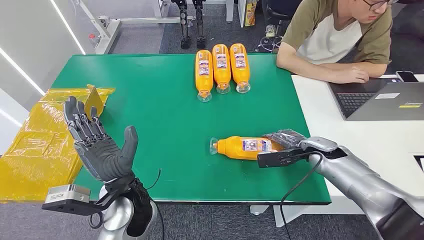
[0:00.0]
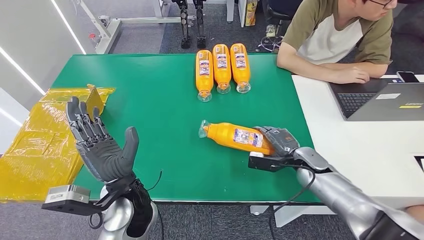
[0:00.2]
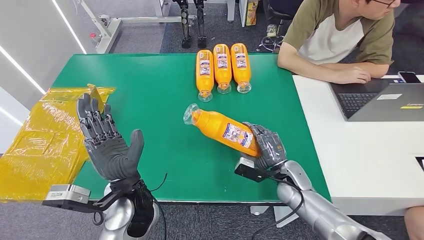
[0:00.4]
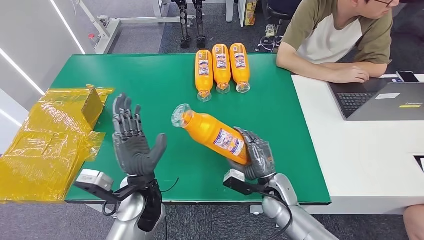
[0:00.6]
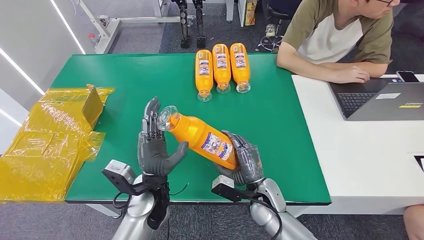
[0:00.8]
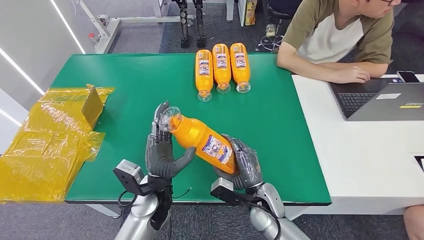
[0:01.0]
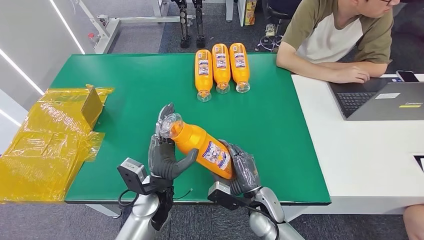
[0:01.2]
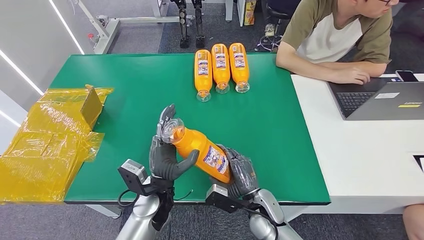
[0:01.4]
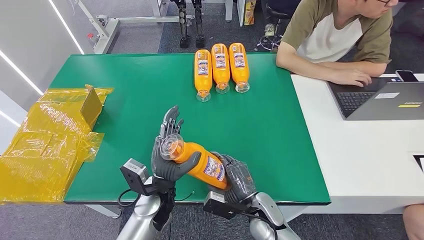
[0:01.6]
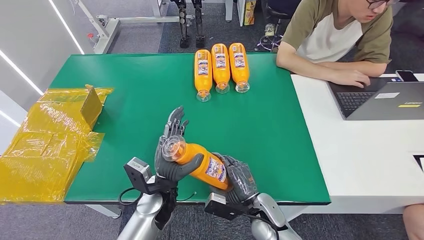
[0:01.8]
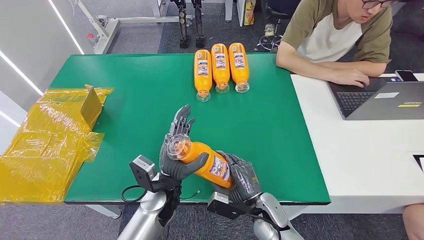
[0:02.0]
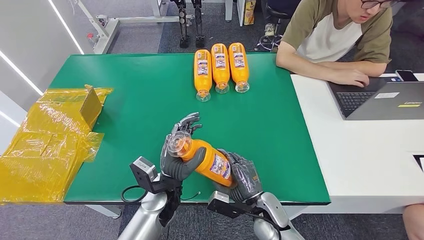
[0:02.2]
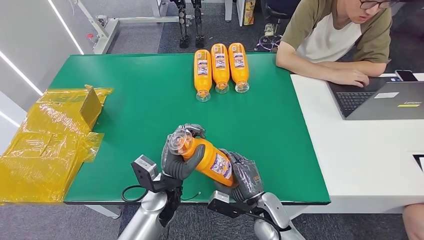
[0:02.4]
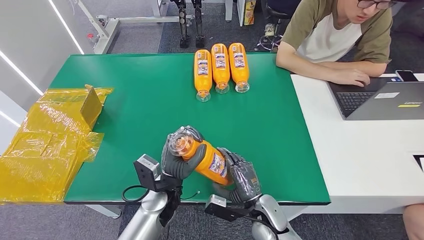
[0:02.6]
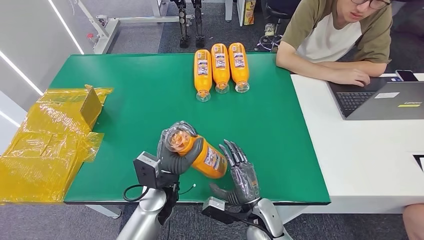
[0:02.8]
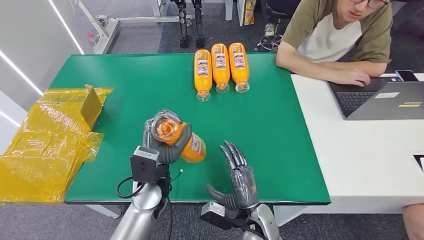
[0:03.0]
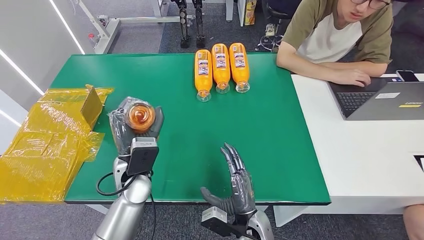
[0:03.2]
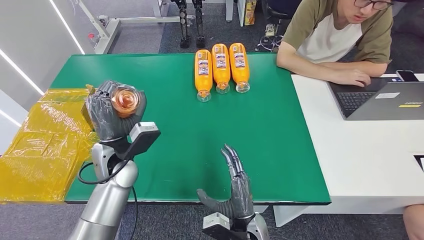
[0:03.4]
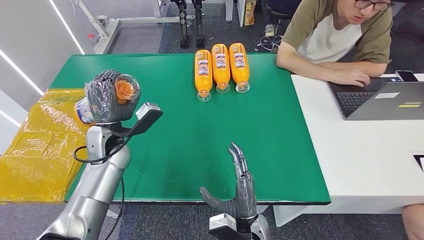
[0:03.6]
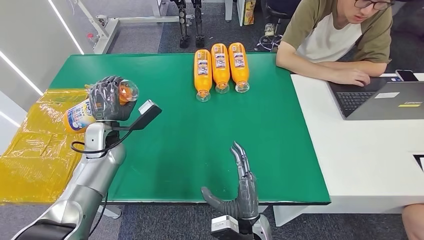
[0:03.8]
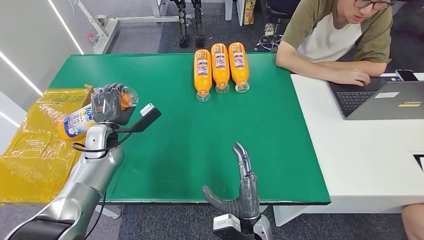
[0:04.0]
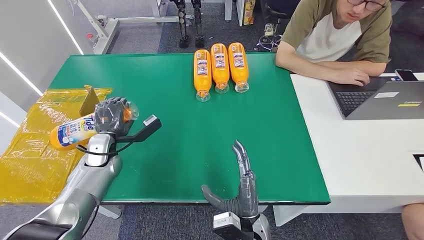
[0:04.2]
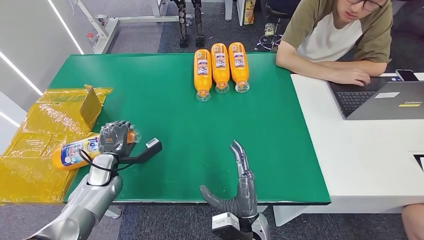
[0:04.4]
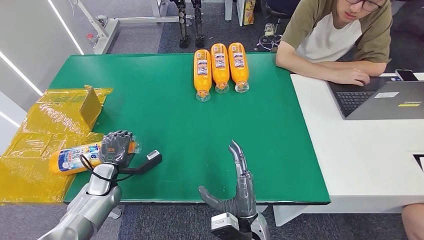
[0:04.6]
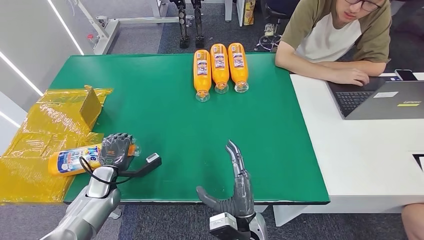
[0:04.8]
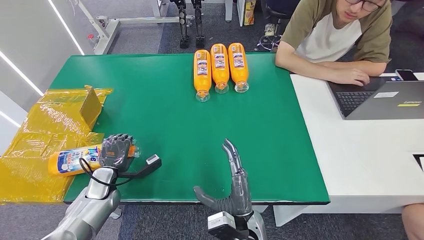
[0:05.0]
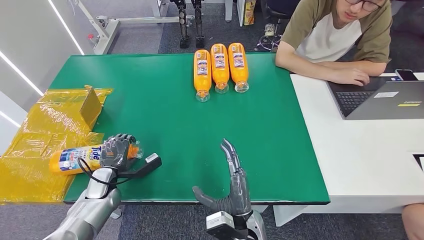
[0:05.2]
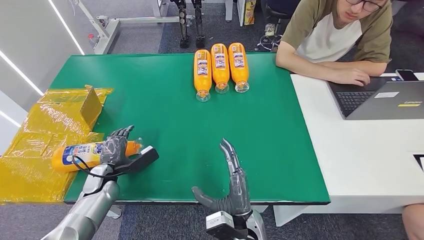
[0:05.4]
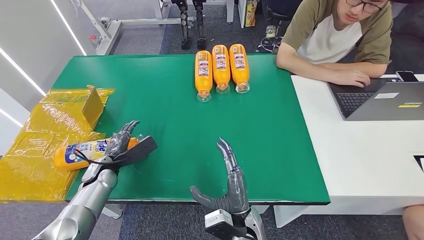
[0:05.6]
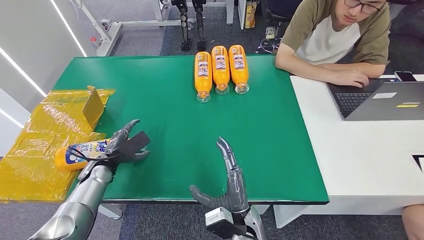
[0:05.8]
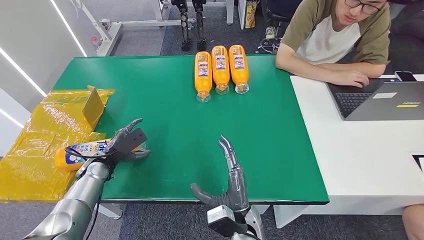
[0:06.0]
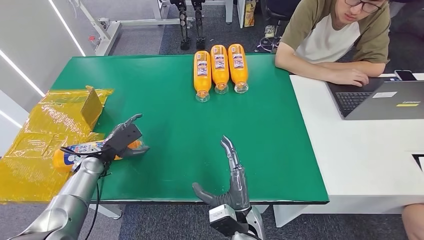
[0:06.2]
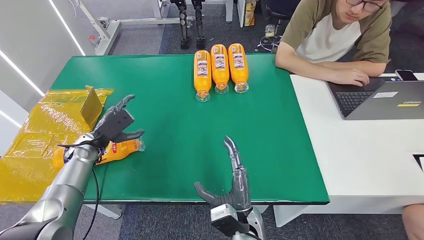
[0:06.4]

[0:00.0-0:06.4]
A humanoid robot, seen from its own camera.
Step, 0:00.0 to 0:02.0: Pick up the bottle from the table.
Step, 0:02.4 to 0:06.4: Turn the bottle to the front side.
0:01.6 to 0:03.2: The right hand changes place by about 5 cm. The left hand shifts some 10 cm upward and forward.
0:03.2 to 0:04.8: The left hand moves to the left and downward, roughly 20 cm.
0:04.8 to 0:06.4: The left hand is displaced forward and upward by approximately 10 cm.

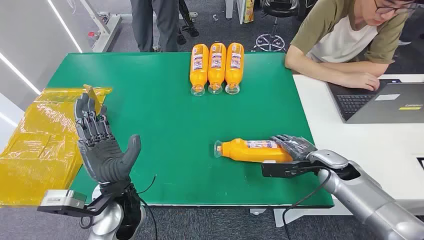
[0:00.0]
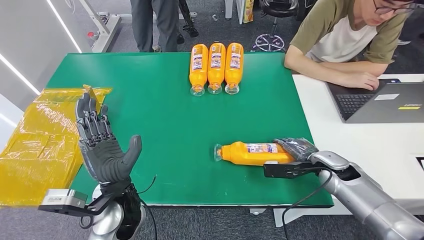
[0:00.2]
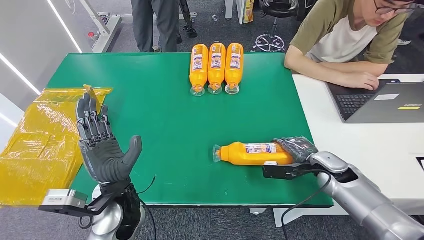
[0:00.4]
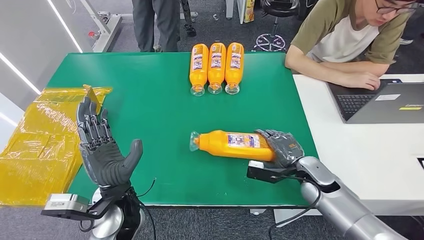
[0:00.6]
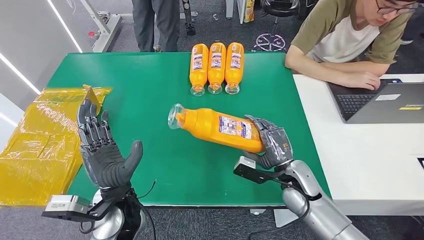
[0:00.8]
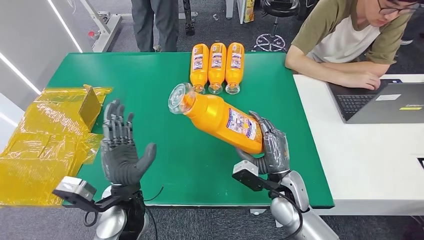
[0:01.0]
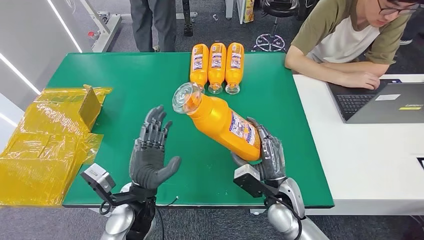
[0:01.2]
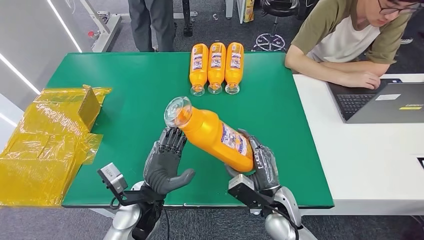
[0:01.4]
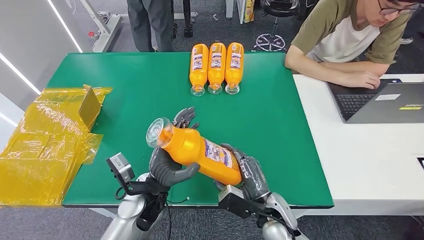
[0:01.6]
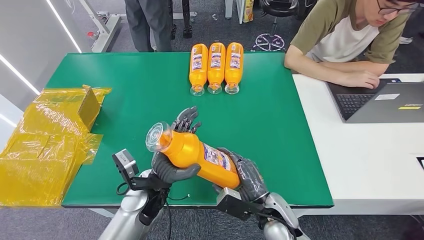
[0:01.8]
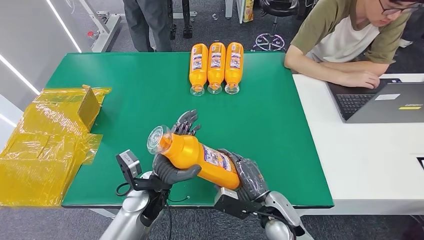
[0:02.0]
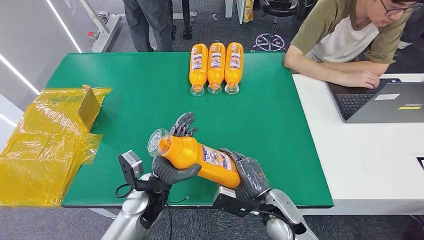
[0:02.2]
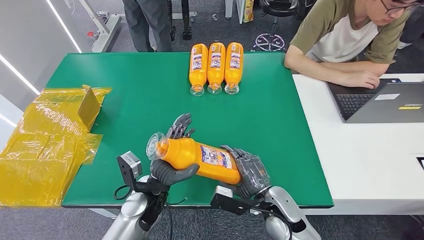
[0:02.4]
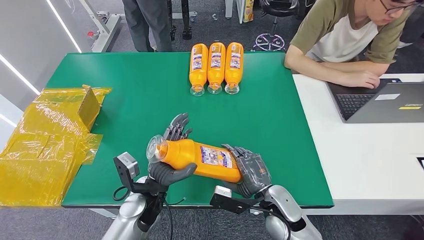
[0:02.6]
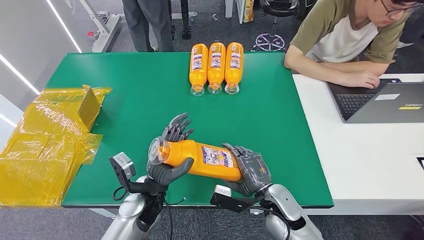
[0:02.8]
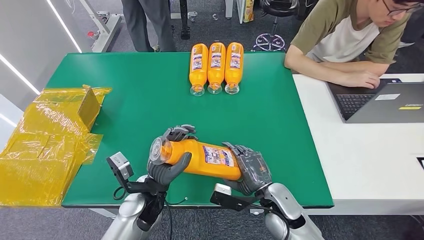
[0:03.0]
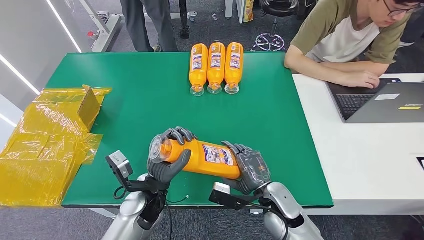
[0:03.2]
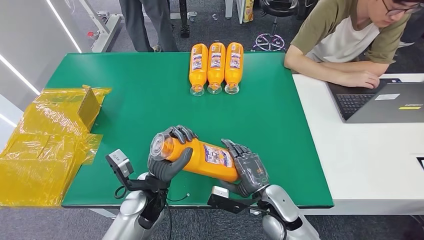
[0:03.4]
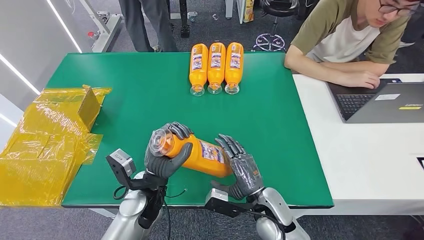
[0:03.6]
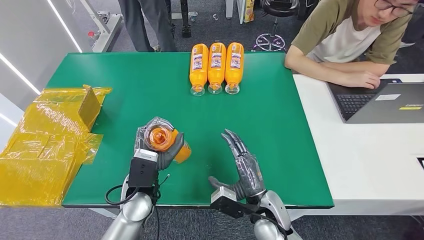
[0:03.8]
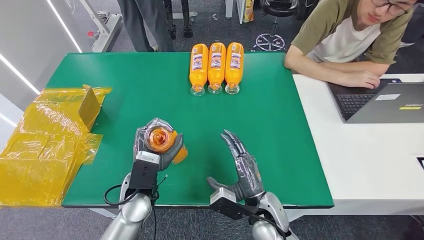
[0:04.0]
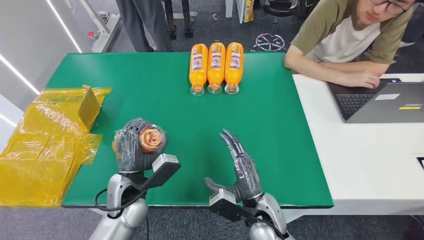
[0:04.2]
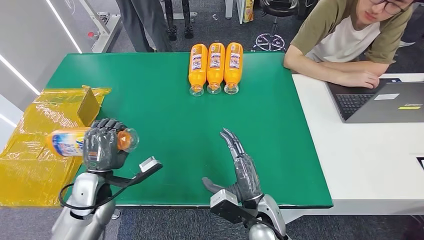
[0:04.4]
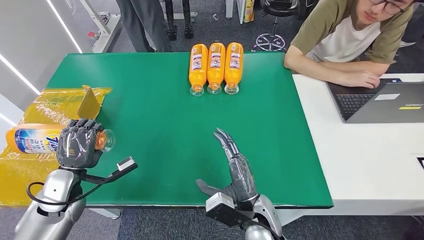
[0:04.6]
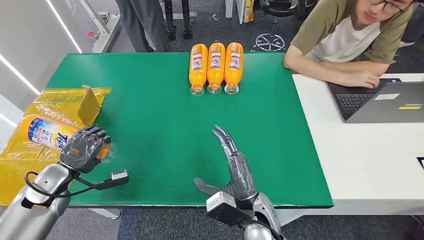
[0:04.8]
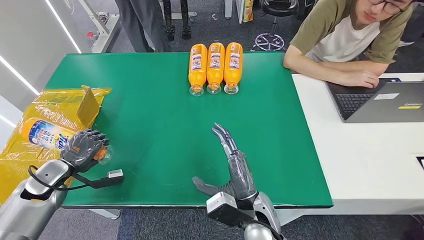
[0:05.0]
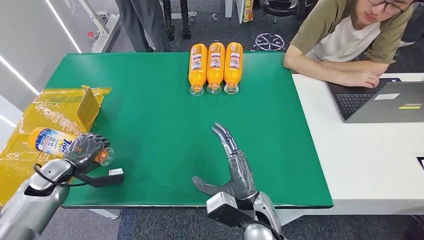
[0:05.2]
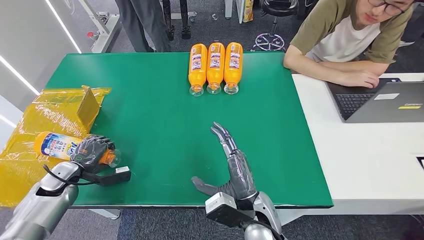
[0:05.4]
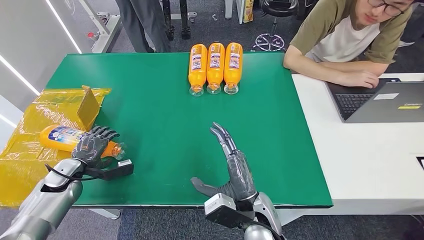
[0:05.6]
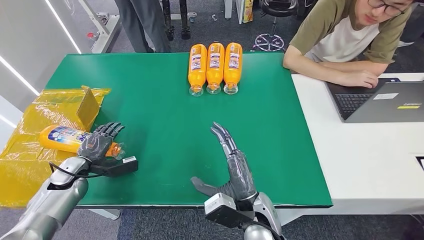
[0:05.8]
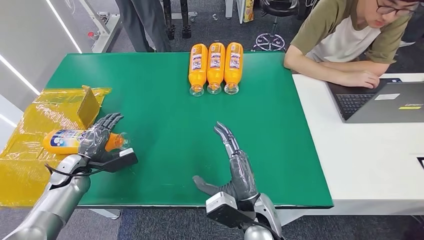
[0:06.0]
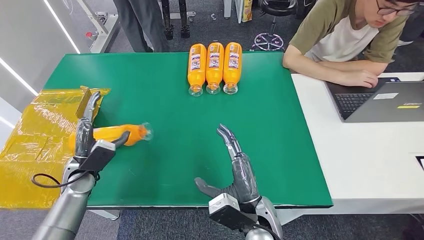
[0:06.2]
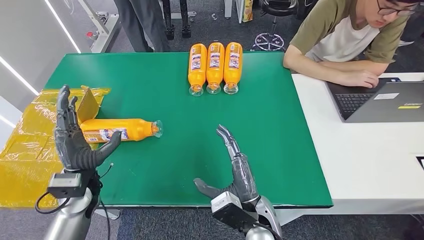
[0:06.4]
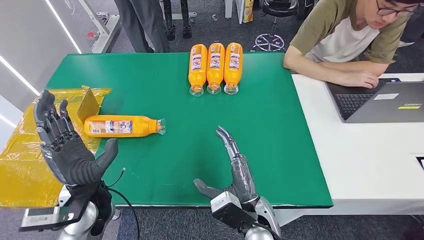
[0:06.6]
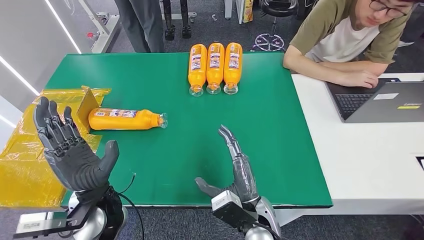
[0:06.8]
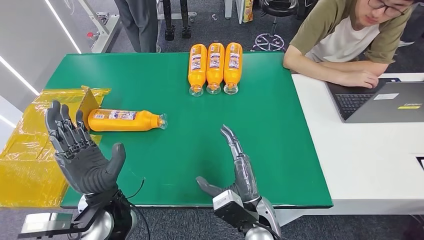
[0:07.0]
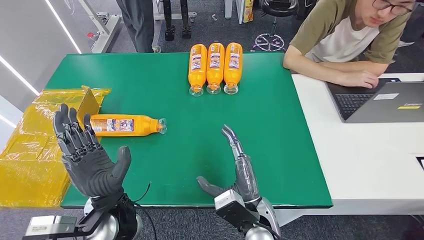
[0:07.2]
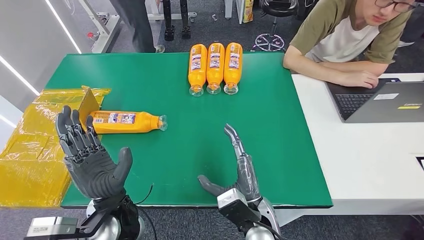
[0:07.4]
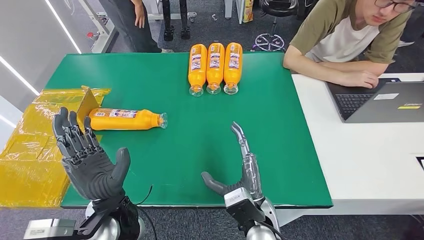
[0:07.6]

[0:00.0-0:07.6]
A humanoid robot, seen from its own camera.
Step, 0:00.0 to 0:02.8: Pick up the bottle from the table.
Step, 0:03.0 to 0:07.6: Turn the bottle to the front side.
0:03.0 to 0:04.6: The left hand is displaced to the left by approximately 25 cm; the right hand heads to the left, covering some 5 cm.
0:04.6 to 0:06.0: The left hand shifts by about 5 cm.
0:06.0 to 0:07.6: The left hand travels to the right by roughly 25 cm.
